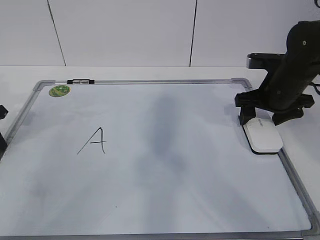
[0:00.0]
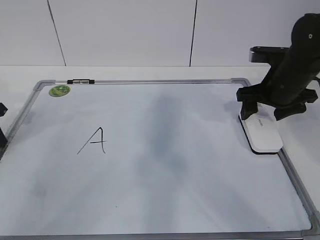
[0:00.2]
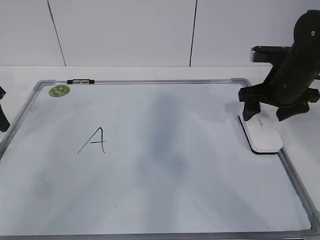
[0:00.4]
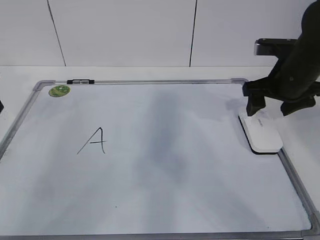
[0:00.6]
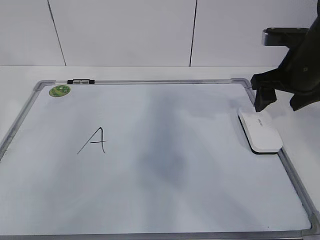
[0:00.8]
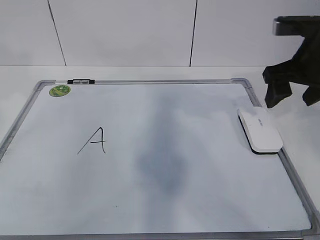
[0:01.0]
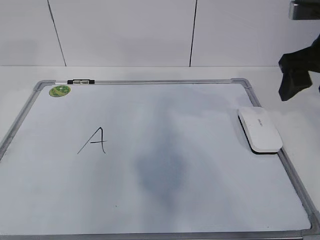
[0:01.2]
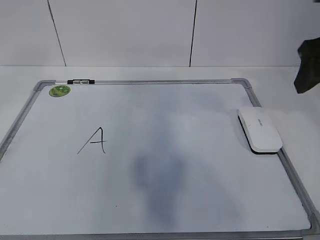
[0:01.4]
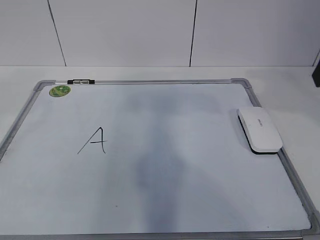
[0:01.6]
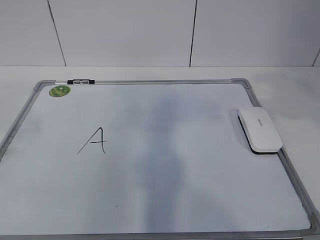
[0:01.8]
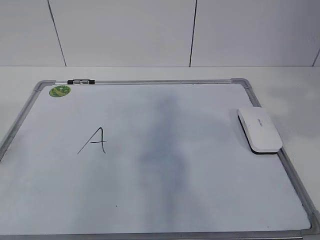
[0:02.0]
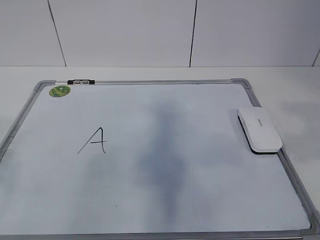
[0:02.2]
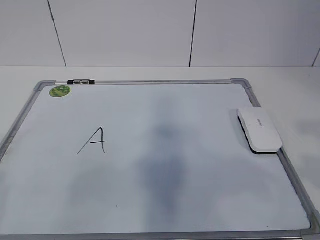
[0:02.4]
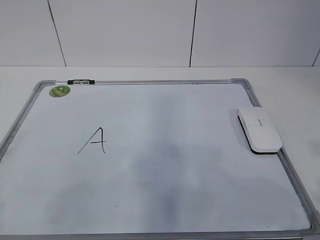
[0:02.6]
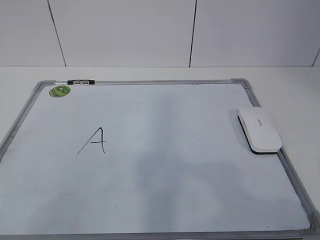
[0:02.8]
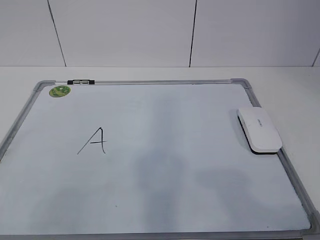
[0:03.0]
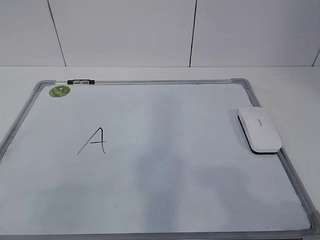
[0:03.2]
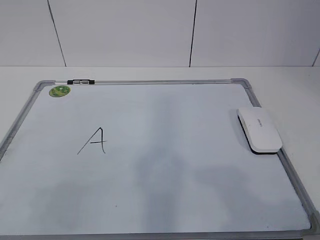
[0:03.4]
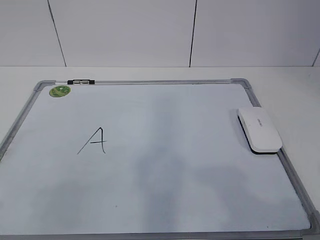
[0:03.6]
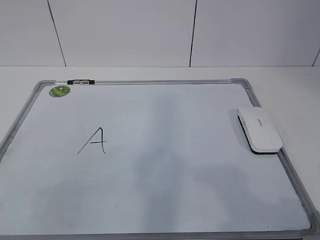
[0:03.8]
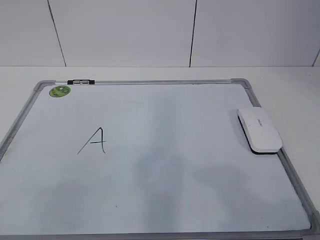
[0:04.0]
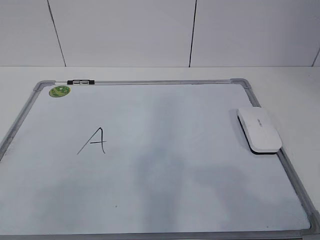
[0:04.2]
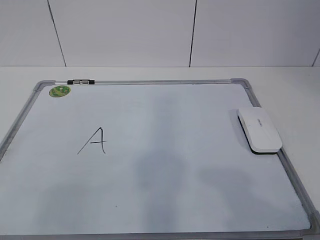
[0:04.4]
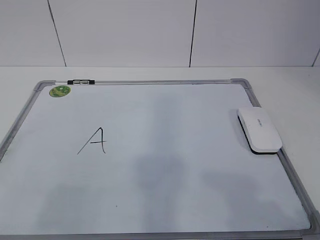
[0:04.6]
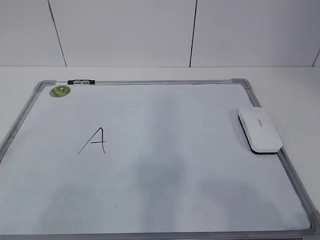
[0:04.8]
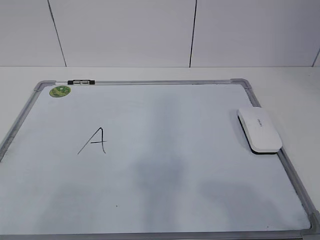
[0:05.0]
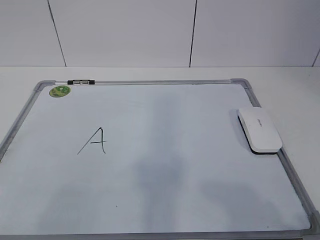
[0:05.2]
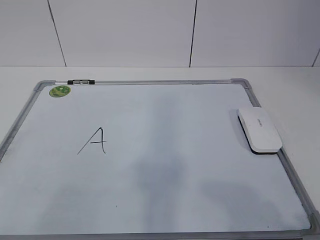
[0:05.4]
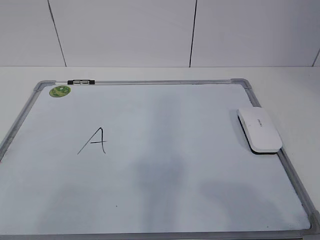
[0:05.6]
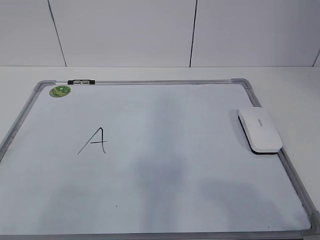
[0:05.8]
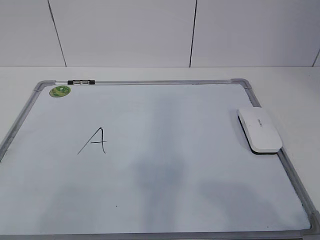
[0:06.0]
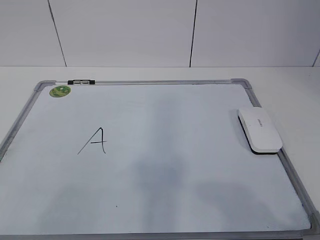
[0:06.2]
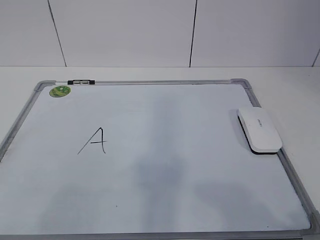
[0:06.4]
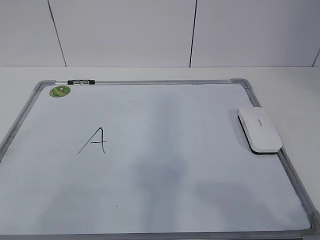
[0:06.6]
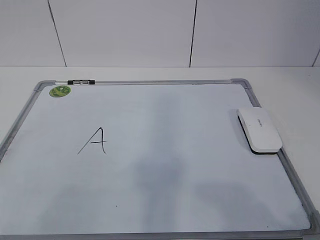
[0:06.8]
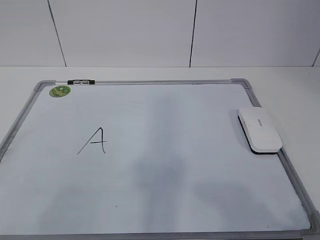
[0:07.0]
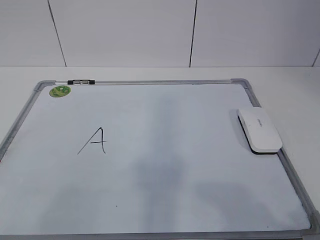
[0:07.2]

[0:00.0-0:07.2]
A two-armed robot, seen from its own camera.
Task of the whole recording: pick up the eraser on the blackboard and erase the letter "a".
0:00.0 to 0:01.4: The two grippers go about 25 cm upward and backward. The left gripper opens.
0:01.4 to 0:02.8: The left gripper shifts about 25 cm backward and downward; the right gripper shifts some 25 cm backward.
0:05.8 to 0:07.2: The two grippers keep their place.
